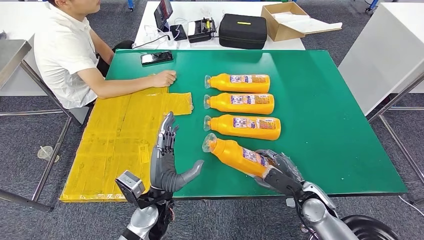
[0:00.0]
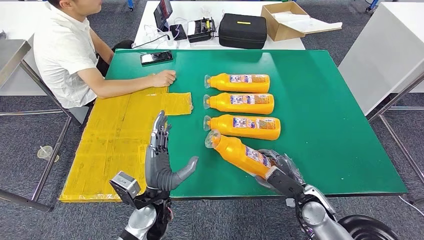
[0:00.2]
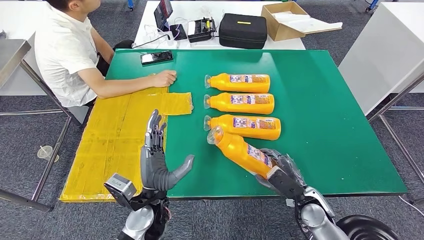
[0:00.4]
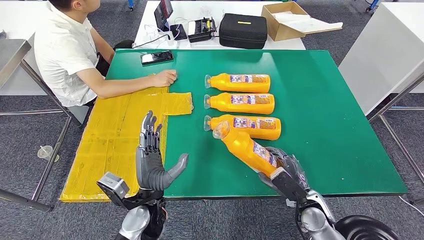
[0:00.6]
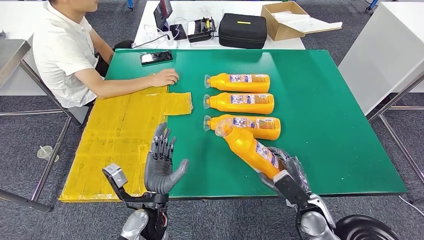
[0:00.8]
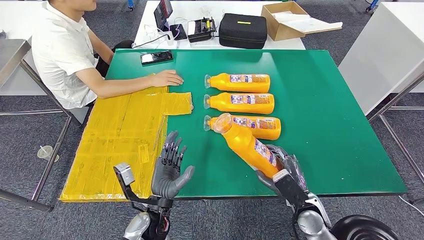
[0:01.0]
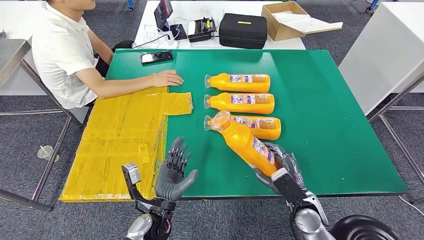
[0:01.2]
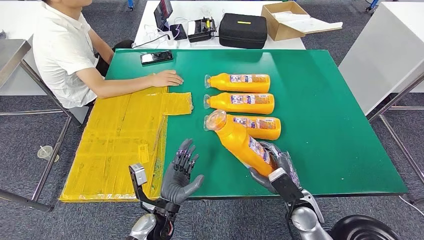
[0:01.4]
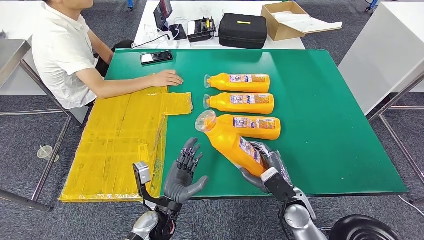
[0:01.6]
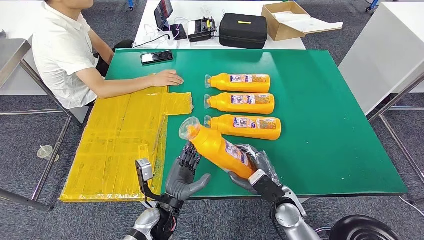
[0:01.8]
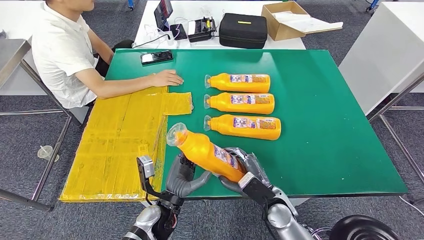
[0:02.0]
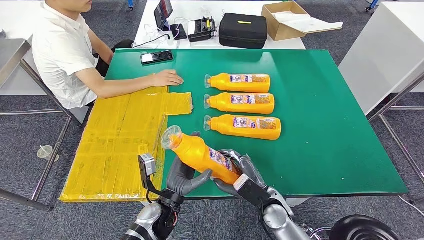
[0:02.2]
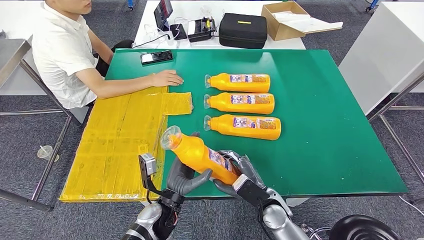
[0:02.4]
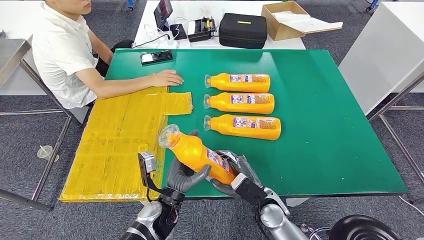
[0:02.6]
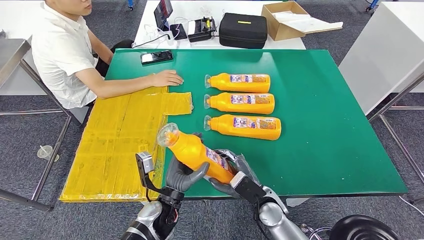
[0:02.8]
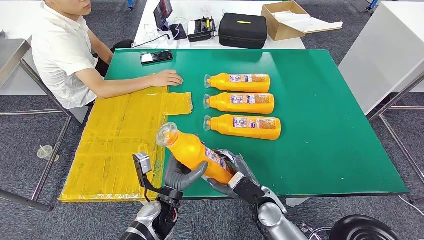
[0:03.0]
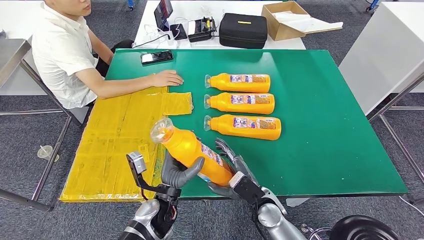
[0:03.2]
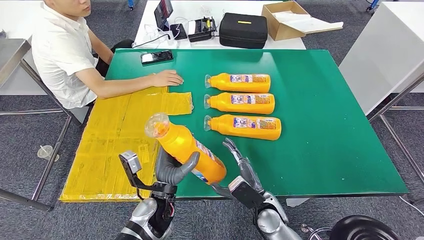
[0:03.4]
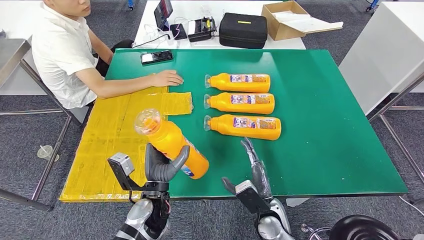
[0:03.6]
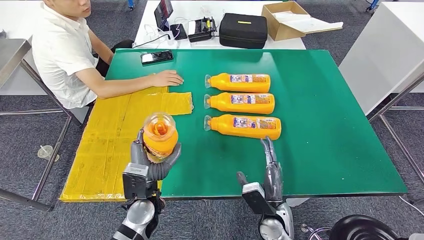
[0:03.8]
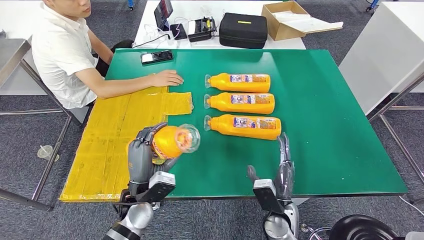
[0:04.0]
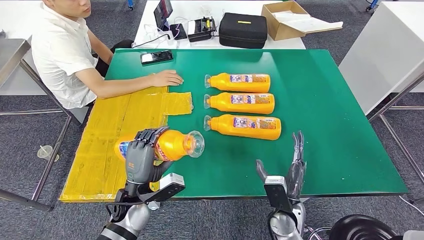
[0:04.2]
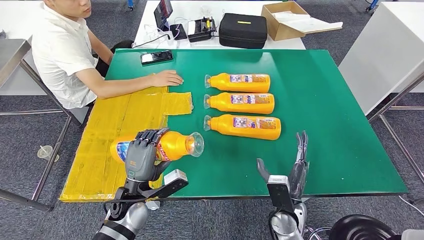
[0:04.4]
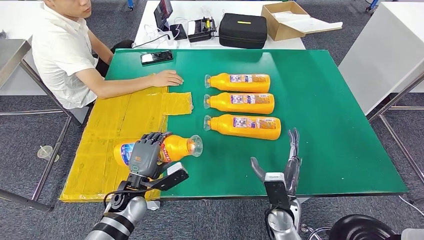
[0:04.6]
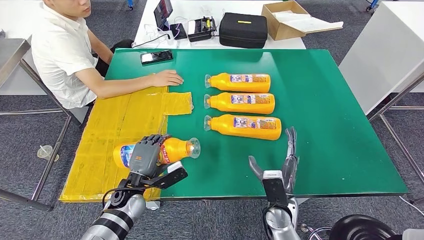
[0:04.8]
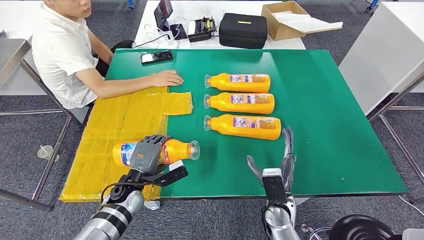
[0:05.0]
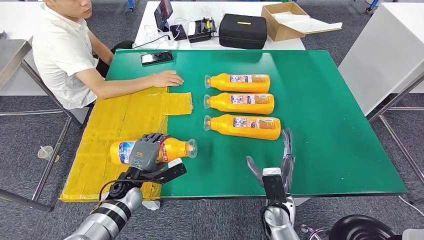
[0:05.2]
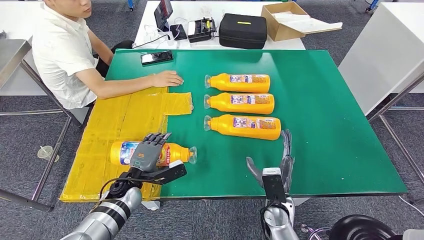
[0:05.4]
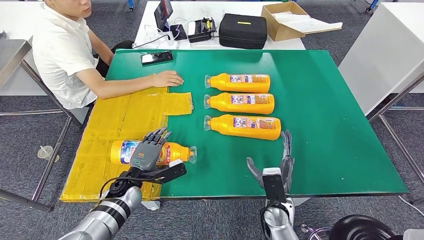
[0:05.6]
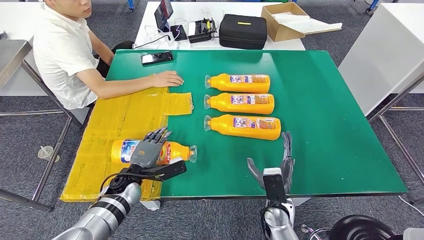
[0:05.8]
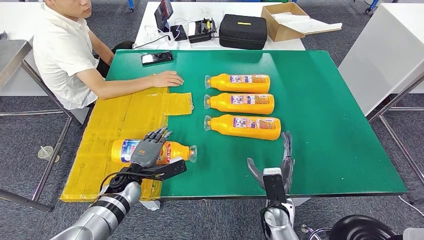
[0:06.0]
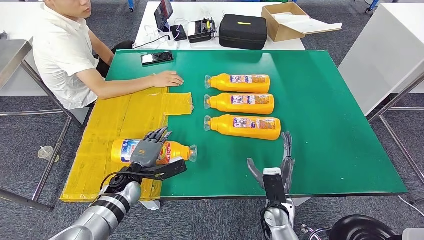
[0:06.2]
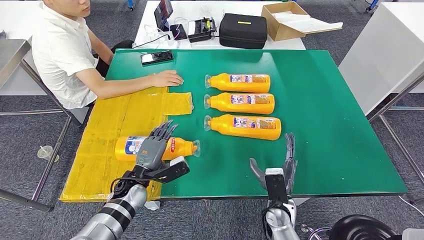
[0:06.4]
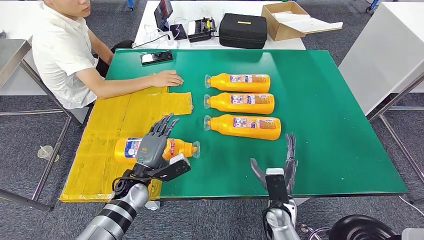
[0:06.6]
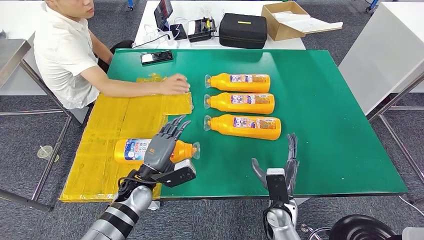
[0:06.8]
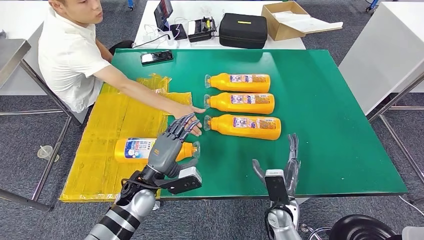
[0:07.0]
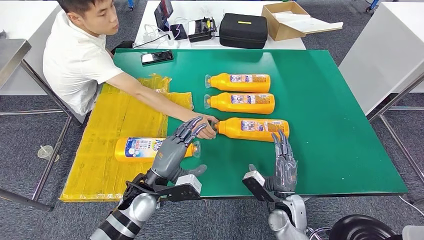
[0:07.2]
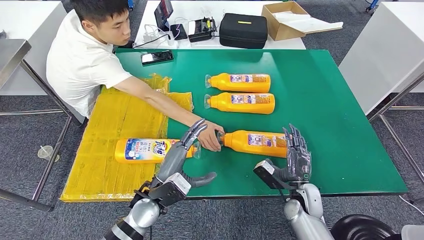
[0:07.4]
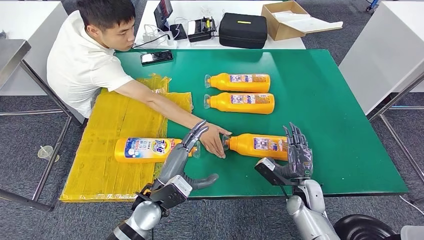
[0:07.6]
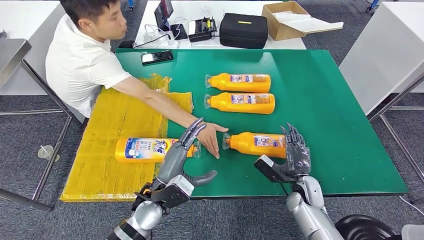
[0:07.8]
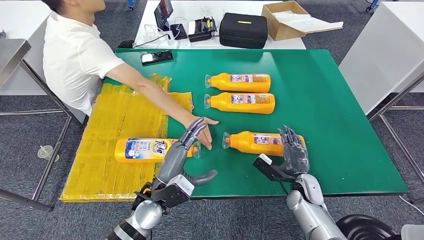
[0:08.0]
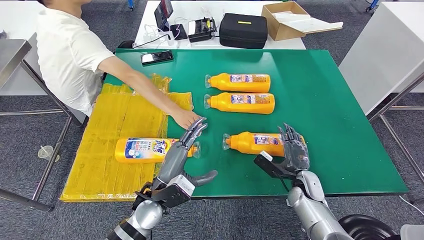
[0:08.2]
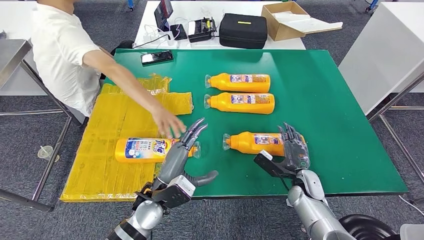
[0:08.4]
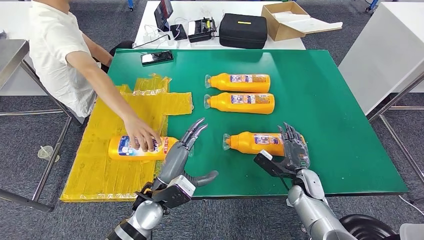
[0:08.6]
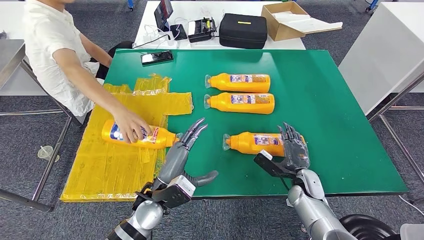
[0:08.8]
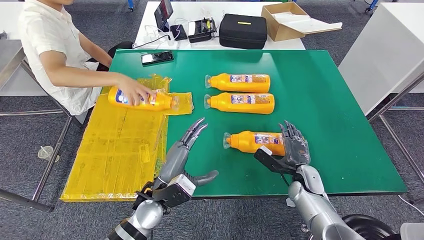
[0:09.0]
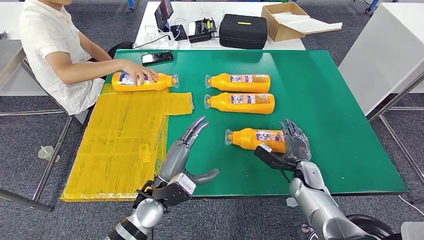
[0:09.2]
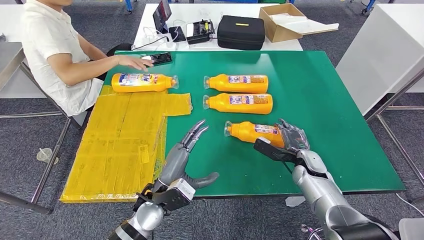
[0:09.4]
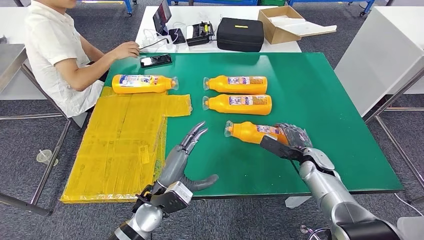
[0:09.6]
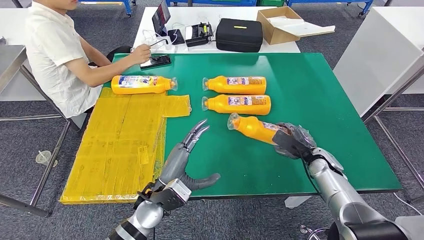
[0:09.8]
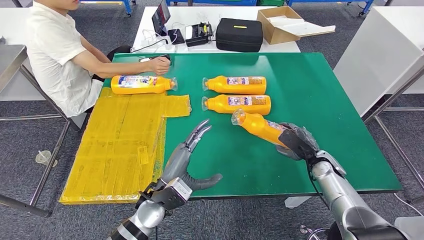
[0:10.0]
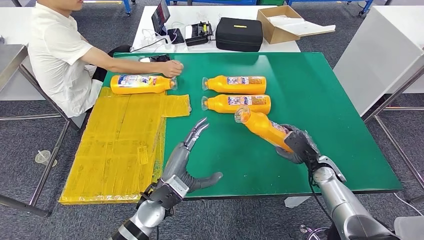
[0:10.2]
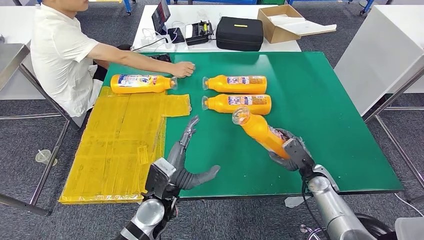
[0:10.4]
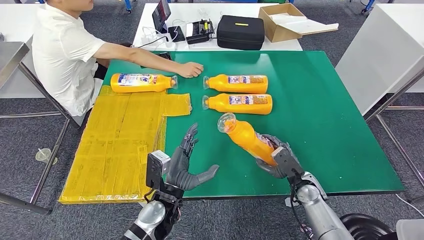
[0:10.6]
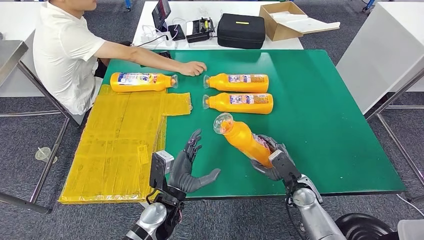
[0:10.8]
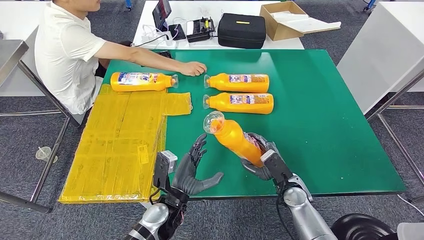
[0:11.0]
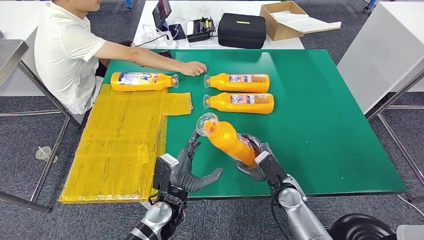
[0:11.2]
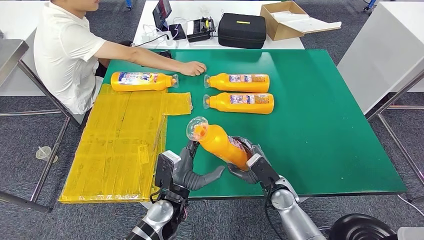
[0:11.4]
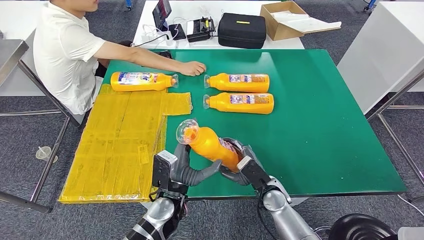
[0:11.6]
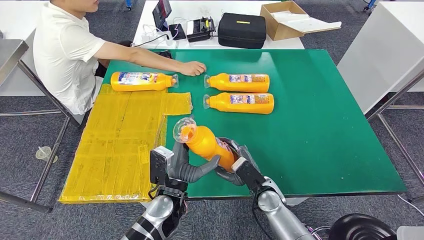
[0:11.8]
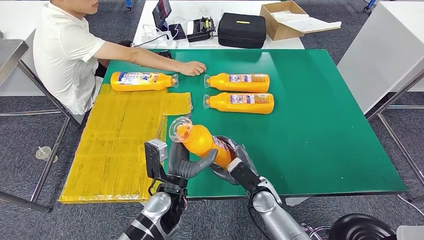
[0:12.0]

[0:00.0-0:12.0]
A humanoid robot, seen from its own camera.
Step, 0:00.0 to 0:02.2: Take the fast-moving consumer goods bottle from the table.
Step, 0:02.6 to 0:08.6: Flip the fast-moving consumer goods bottle to the front side.
0:00.0 to 0:01.6: The right hand shifts some 5 cm to the left. Meanwhile the left hand is displaced downward by some 5 cm.
0:01.6 to 0:03.0: The right hand moves to the left, roughly 5 cm.
0:03.0 to 0:04.4: The left hand moves to the left, roughly 10 cm.
0:04.4 to 0:06.0: The left hand is displaced forward by about 5 cm.

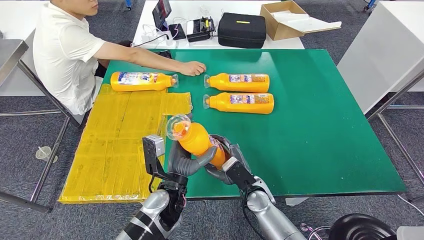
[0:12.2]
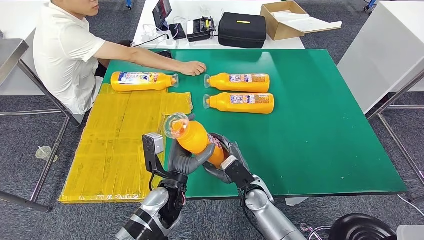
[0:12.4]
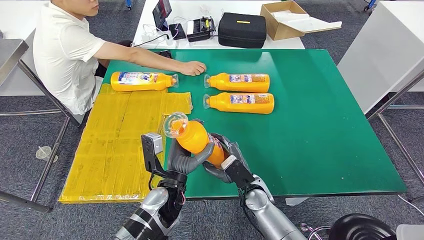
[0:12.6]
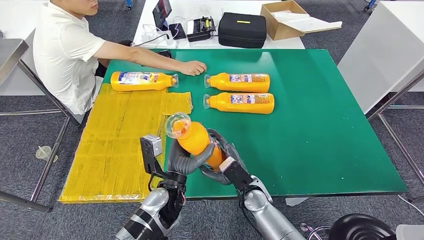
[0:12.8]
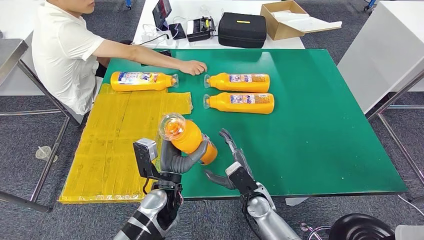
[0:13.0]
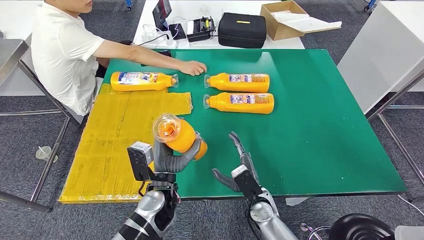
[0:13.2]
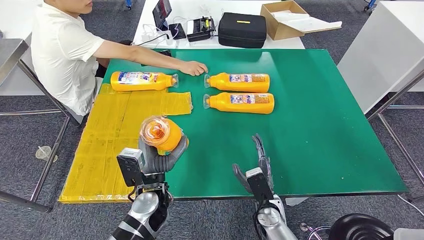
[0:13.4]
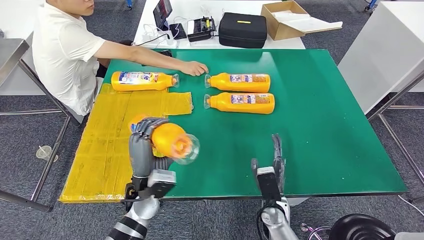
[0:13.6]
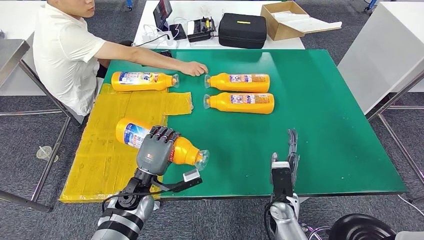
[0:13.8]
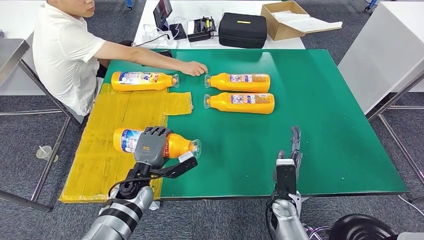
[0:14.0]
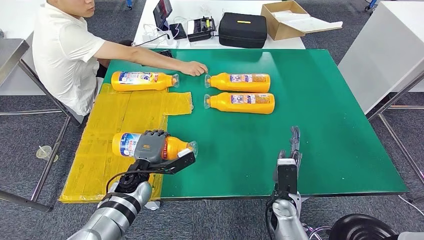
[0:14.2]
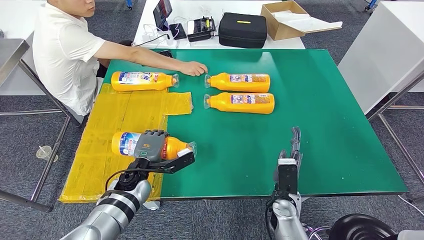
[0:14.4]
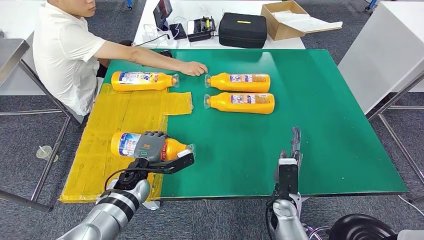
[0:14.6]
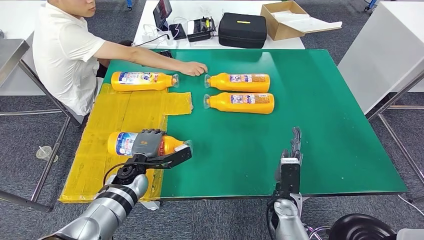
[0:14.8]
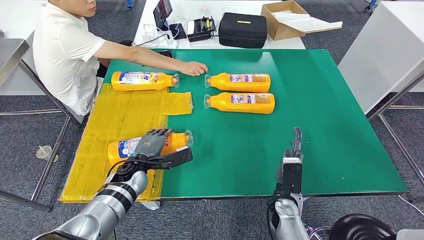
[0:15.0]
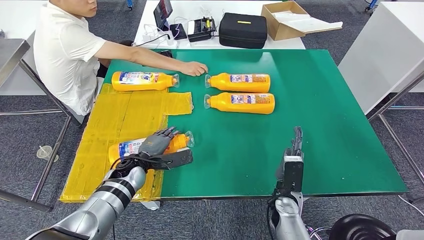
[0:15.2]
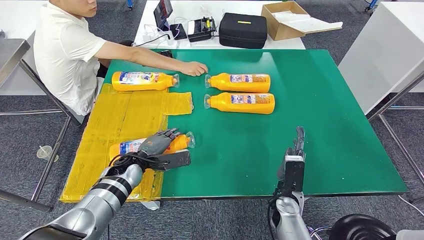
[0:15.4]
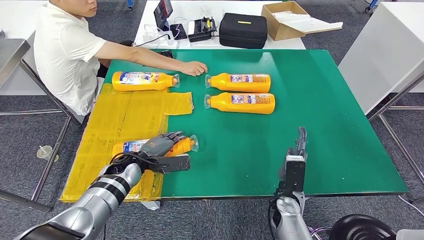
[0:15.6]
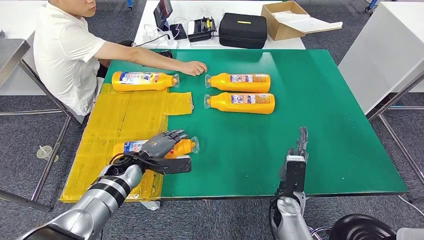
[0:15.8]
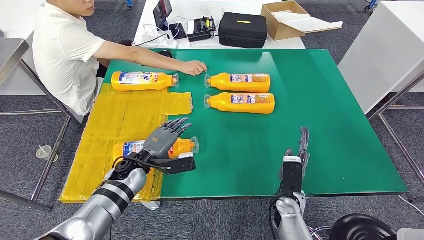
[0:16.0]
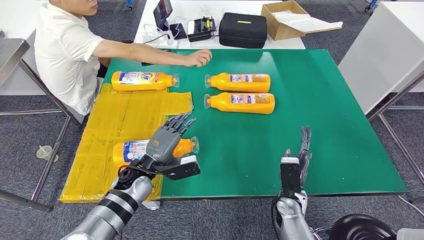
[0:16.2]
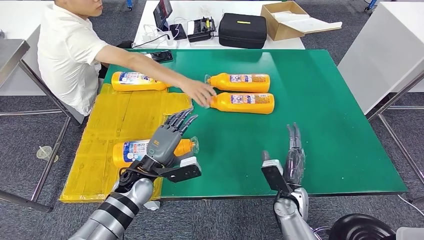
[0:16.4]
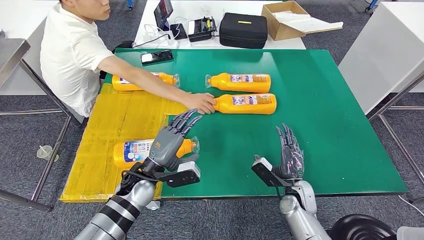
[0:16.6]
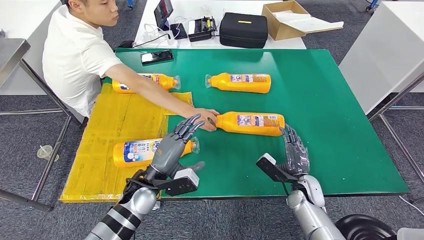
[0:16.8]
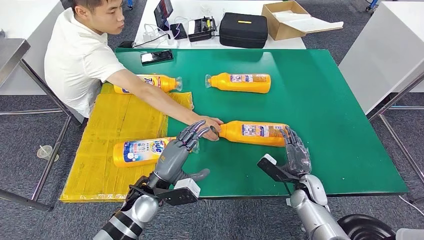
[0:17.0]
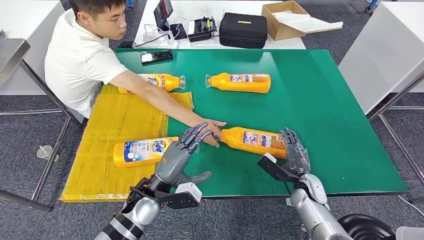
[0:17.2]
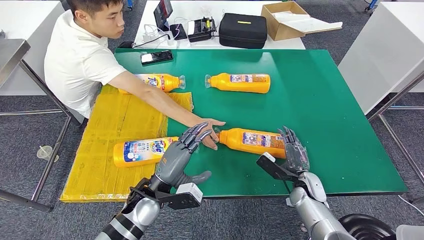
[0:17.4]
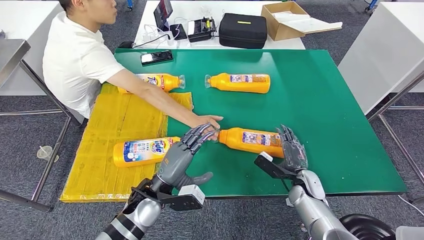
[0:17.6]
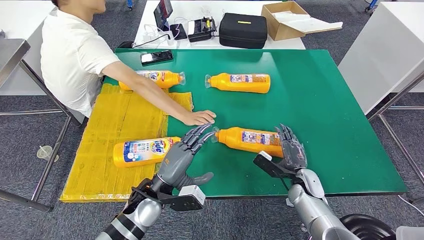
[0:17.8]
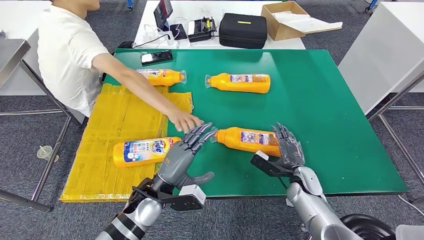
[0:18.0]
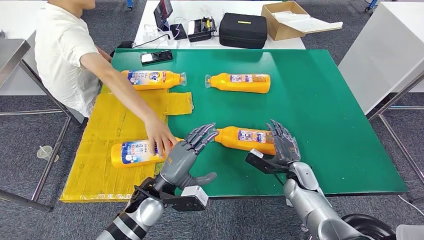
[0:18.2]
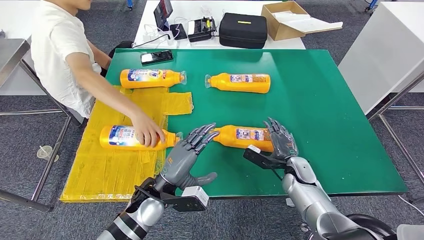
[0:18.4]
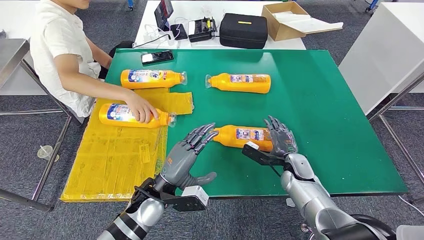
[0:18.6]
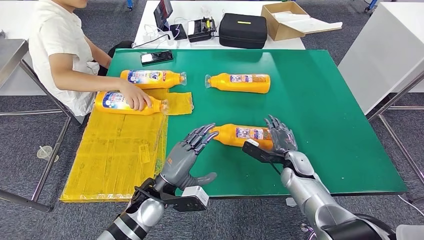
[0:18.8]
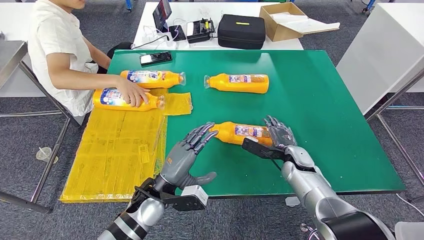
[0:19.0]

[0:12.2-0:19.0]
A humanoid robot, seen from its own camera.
Step, 0:13.2 to 0:17.8: Flip the fast-moving consumer goods bottle to the front side.
0:12.2 to 0:13.6: The left hand is displaced to the left by about 5 cm. Meanwhile the right hand changes place by approximately 5 cm.
0:13.6 to 0:15.0: The left hand goes some 10 cm forward and to the left.
